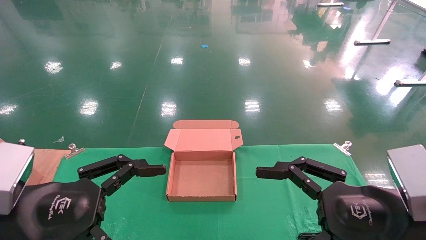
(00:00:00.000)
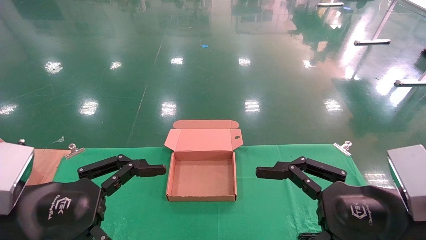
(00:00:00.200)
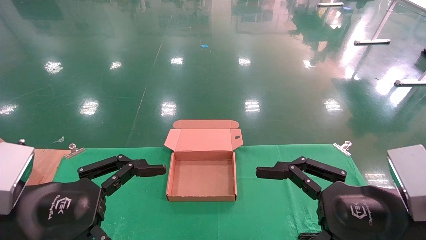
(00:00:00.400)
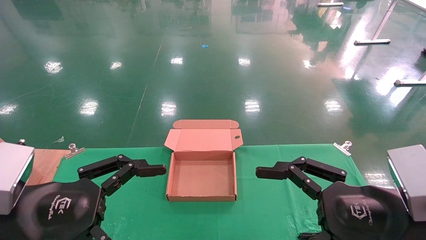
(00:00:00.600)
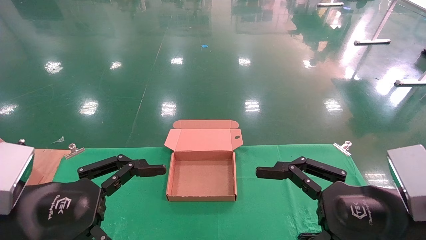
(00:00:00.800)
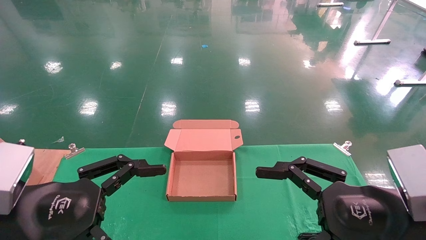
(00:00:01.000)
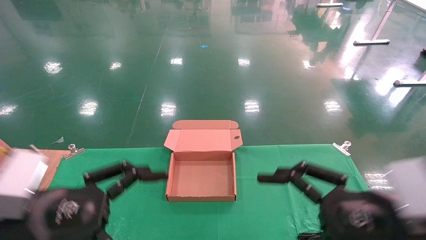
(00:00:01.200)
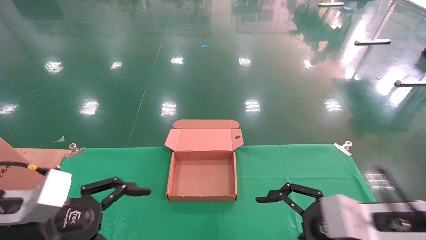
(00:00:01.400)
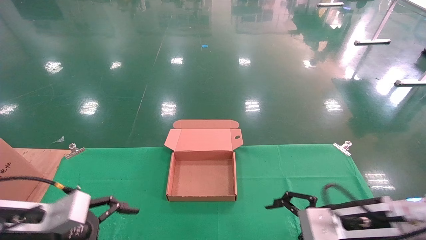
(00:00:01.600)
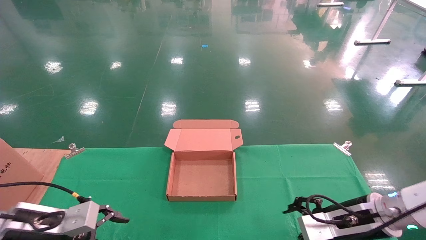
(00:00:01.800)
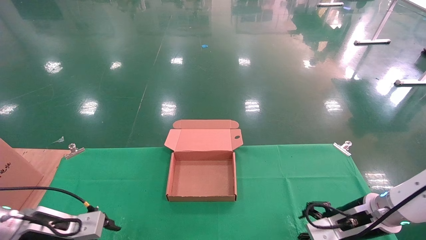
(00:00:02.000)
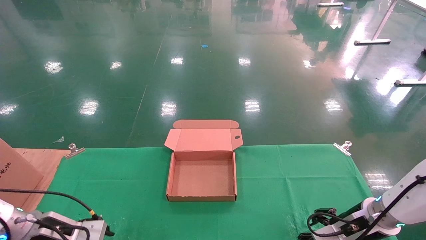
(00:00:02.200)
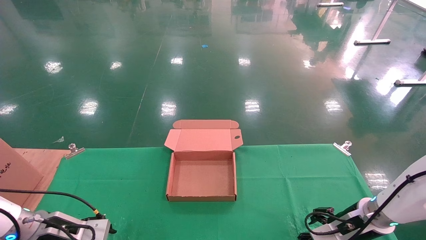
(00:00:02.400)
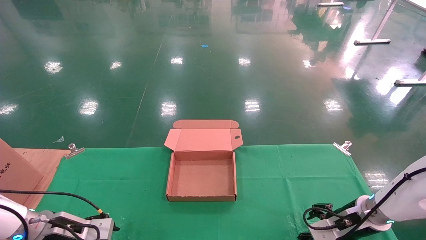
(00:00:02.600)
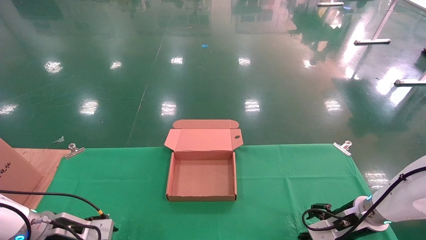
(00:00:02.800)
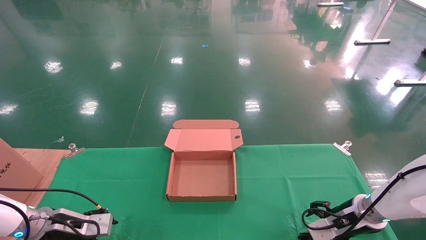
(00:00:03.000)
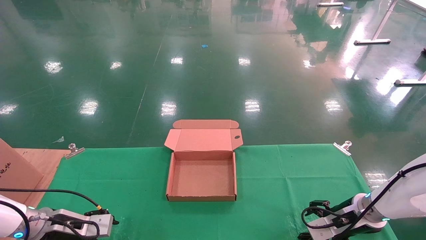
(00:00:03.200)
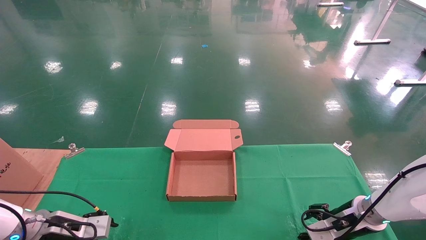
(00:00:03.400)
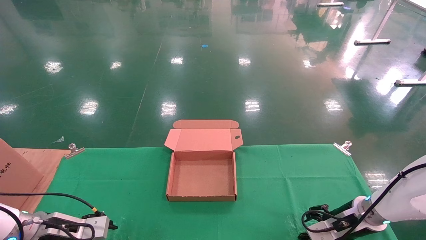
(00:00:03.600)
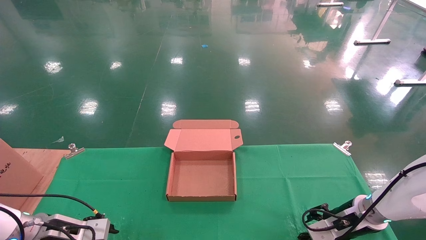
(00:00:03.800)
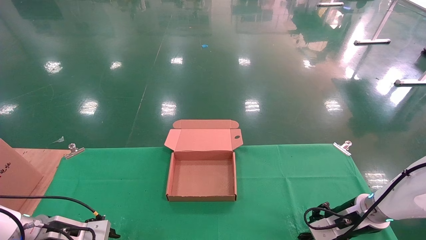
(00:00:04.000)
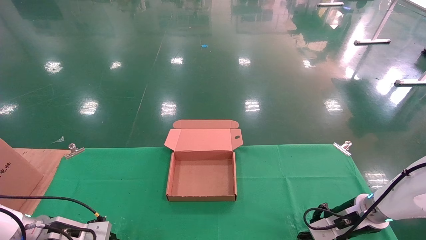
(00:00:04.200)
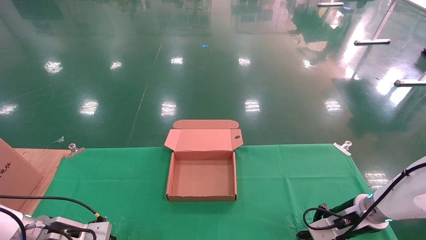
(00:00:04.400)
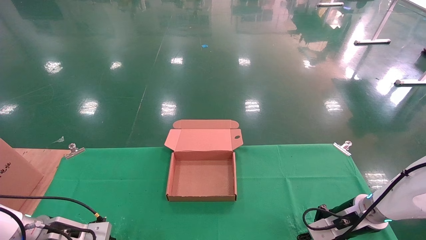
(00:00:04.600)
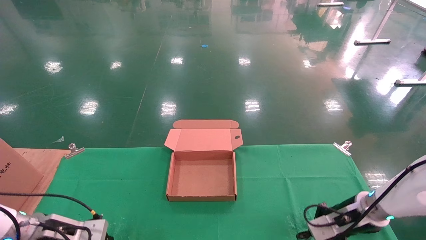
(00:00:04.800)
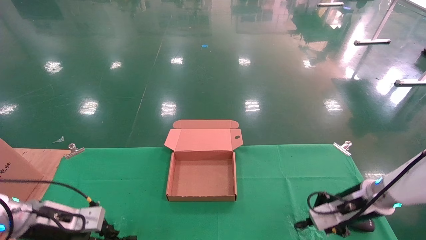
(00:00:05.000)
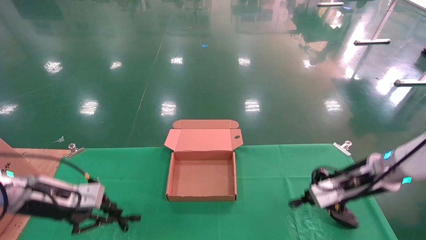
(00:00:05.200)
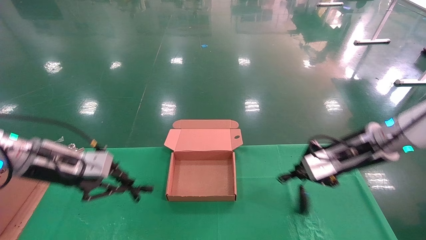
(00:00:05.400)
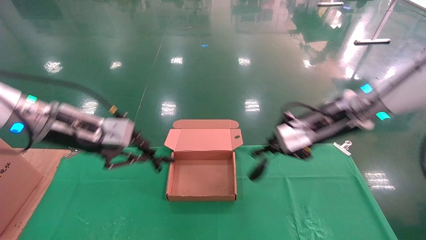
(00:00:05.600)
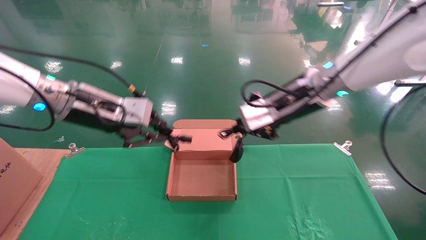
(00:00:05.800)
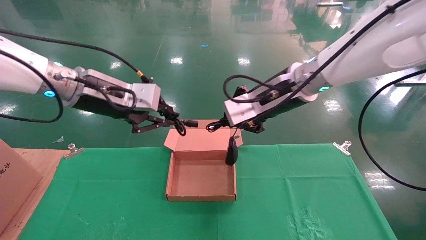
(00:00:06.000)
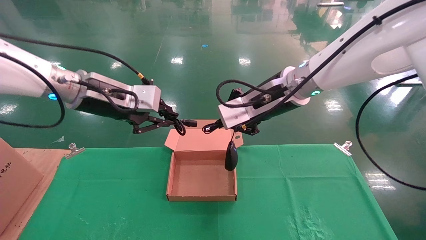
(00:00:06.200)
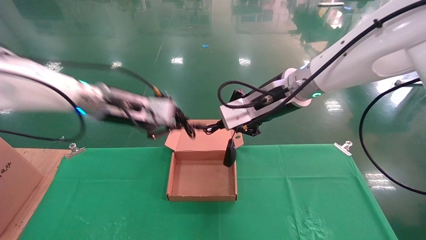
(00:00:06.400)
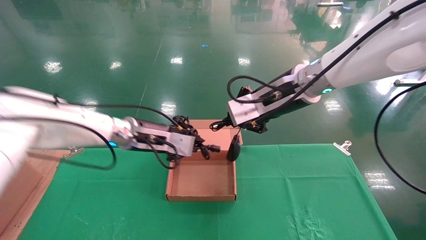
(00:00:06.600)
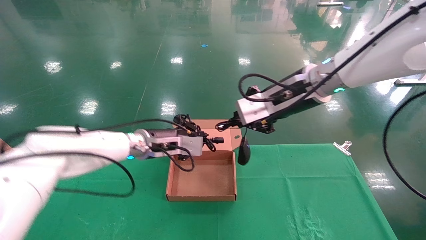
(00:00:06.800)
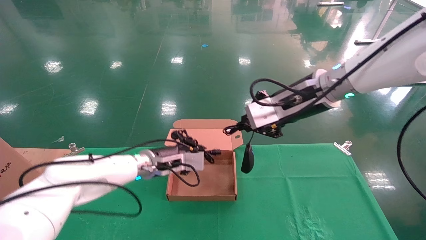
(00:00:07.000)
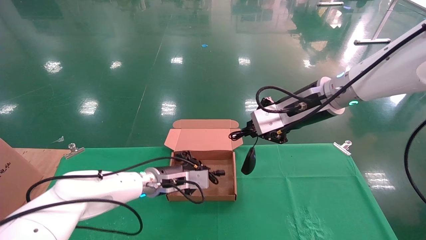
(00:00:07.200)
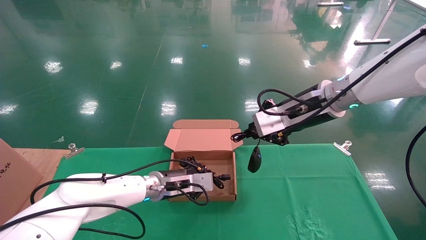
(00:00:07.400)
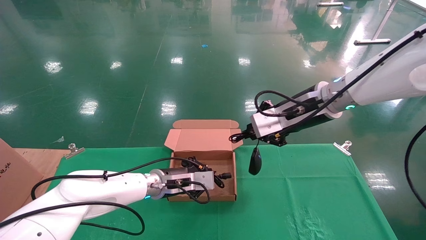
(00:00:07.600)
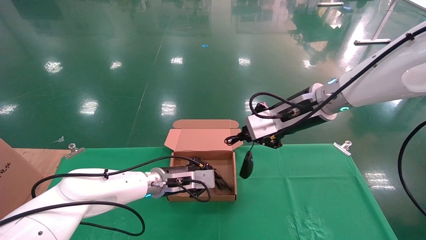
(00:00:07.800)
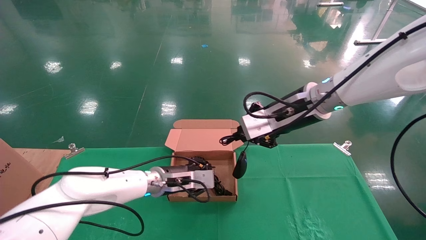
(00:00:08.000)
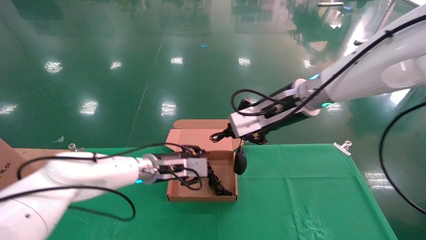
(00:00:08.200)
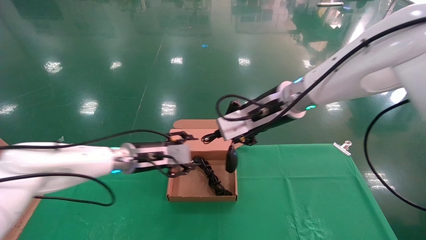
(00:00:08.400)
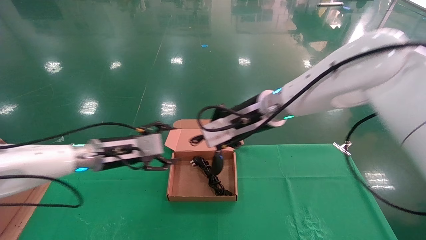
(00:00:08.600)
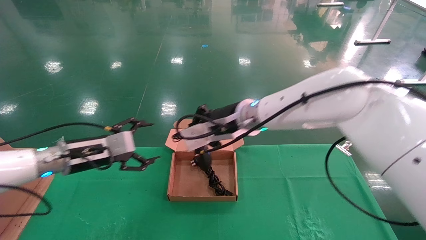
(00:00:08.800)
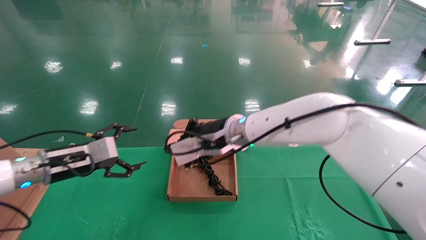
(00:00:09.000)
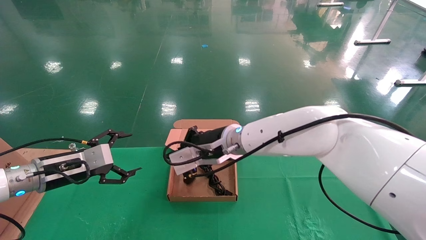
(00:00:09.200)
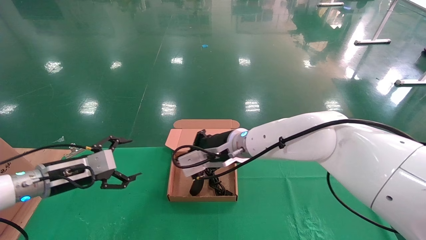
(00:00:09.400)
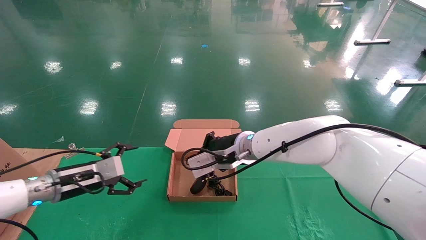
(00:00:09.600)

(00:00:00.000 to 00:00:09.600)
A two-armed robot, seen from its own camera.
Step, 00:00:01.000 - 00:00:04.600: Grab and lift both the mouse and power cord from the accessory packaging area at the same time.
00:00:00.000 - 00:00:01.600: The right gripper travels forward and downward by some 15 cm; the left gripper shifts some 10 cm forward, downward and to the left.
00:00:01.600 - 00:00:03.200: Both grippers move forward and downward, some 15 cm.
00:00:03.200 - 00:00:04.800: The right gripper closes up; the left gripper closes its fingers.
00:00:04.800 - 00:00:06.400: The left gripper moves upward and to the right, roughly 30 cm. Meanwhile the right gripper moves upward and to the left, about 30 cm.
00:00:06.400 - 00:00:08.000: The left gripper goes some 15 cm downward.
00:00:08.000 - 00:00:09.600: The left gripper is displaced to the left by about 20 cm, and opens. Meanwhile the right gripper travels to the left and downward by some 15 cm.

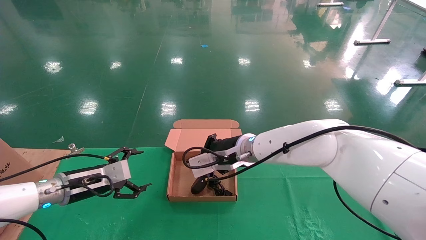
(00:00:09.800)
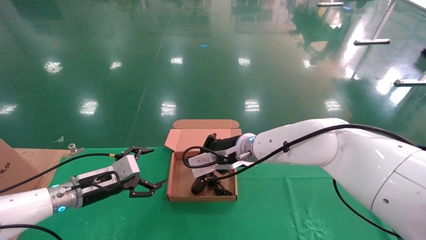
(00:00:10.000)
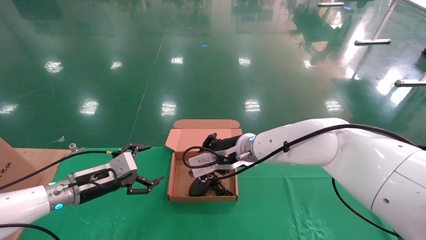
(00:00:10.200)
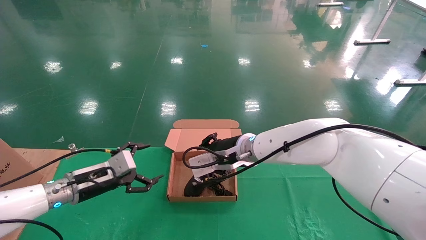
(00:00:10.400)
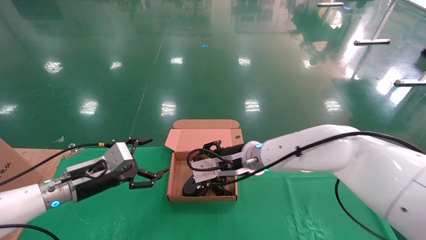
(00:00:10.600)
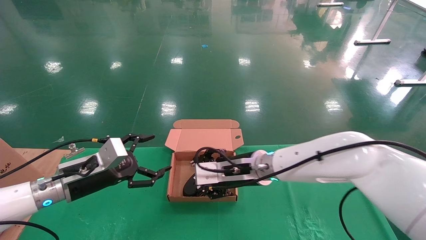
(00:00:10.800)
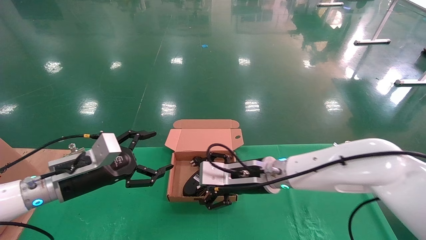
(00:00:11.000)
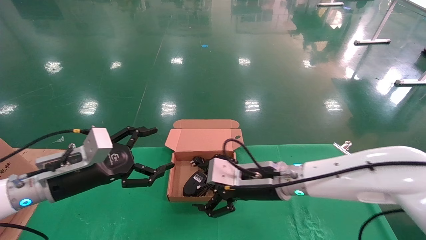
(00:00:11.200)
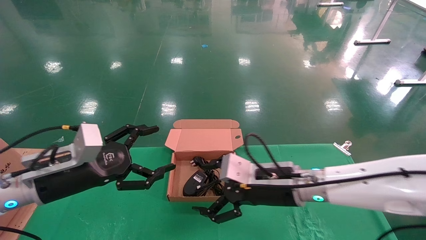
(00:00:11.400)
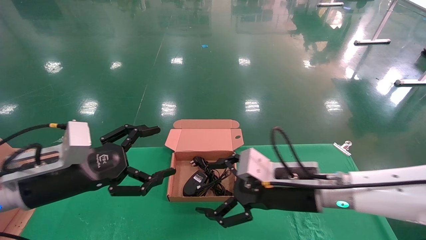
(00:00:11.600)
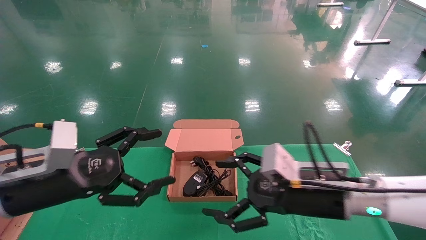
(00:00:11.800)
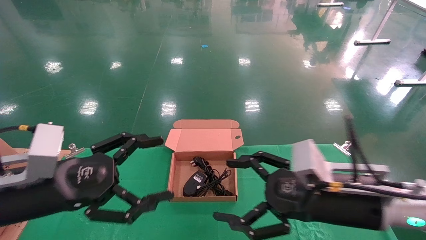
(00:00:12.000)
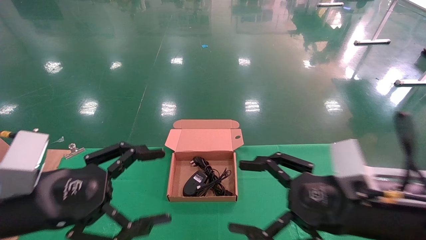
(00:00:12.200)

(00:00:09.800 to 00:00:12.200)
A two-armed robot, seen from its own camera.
00:00:09.800 - 00:00:11.000: The left gripper heads backward, covering some 5 cm. The right gripper moves some 10 cm, and opens up.
00:00:11.000 - 00:00:12.200: The left gripper shifts about 15 cm backward; the right gripper goes approximately 20 cm backward and to the right.
